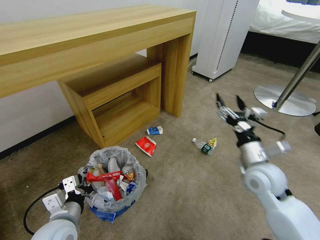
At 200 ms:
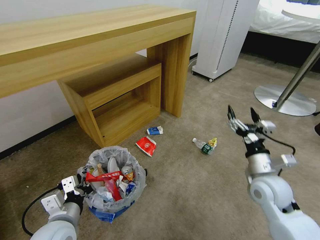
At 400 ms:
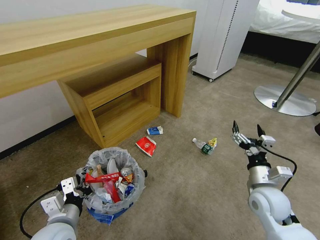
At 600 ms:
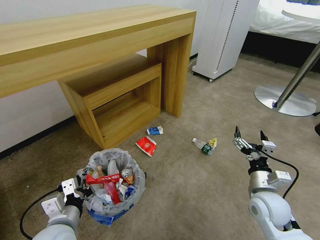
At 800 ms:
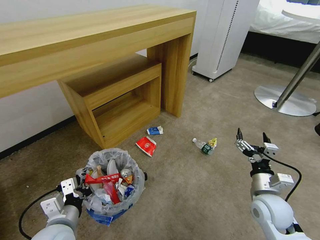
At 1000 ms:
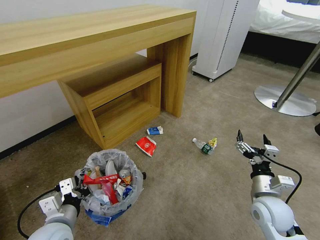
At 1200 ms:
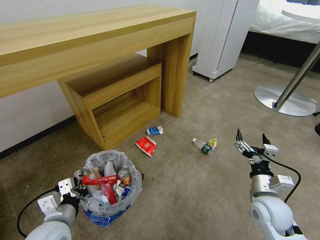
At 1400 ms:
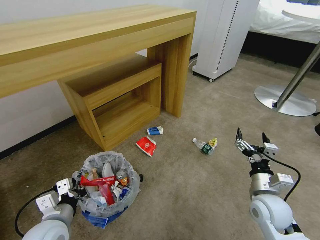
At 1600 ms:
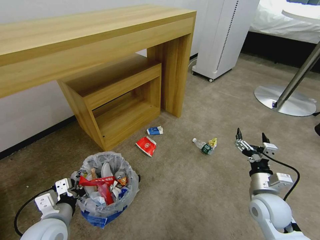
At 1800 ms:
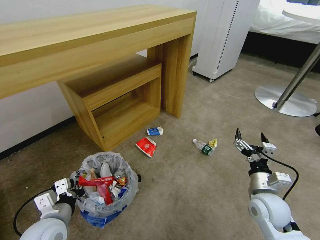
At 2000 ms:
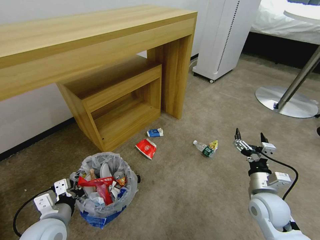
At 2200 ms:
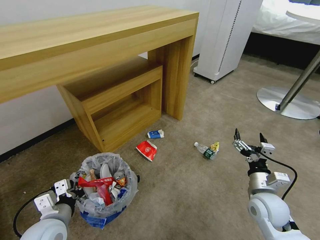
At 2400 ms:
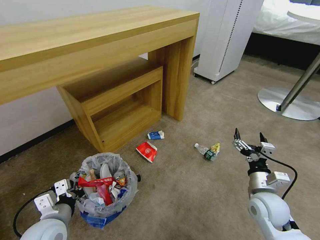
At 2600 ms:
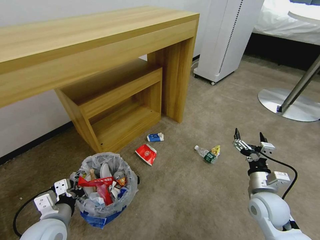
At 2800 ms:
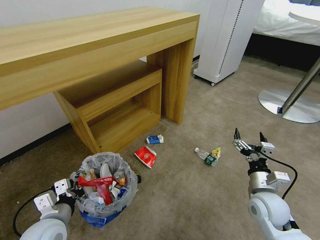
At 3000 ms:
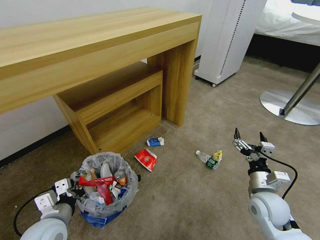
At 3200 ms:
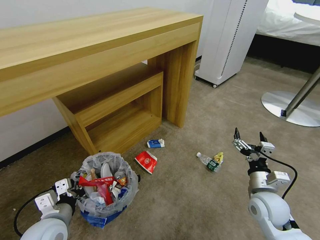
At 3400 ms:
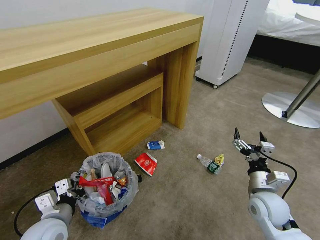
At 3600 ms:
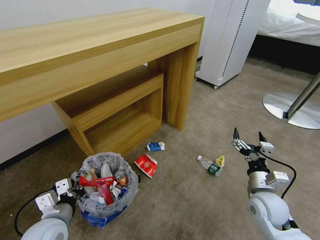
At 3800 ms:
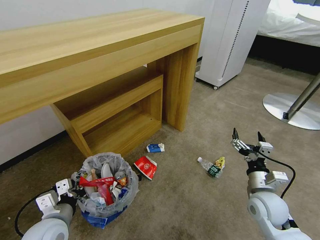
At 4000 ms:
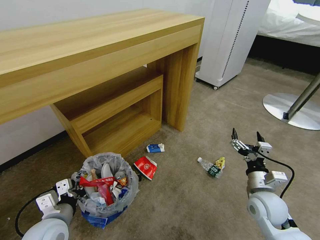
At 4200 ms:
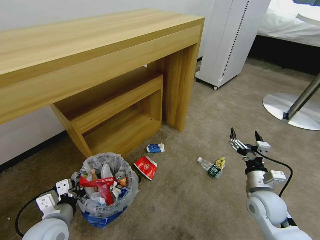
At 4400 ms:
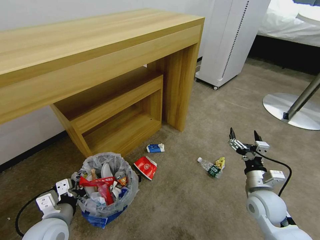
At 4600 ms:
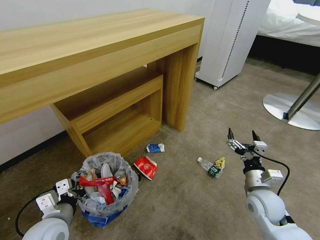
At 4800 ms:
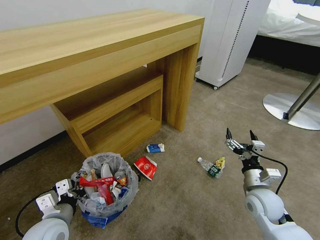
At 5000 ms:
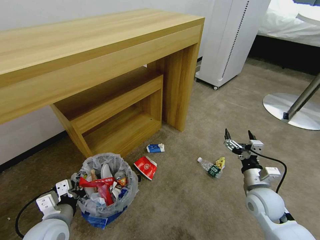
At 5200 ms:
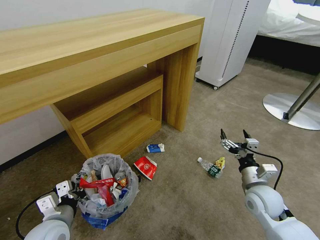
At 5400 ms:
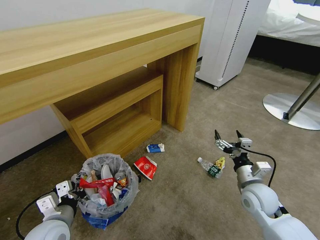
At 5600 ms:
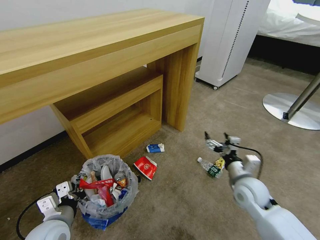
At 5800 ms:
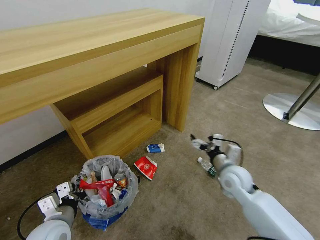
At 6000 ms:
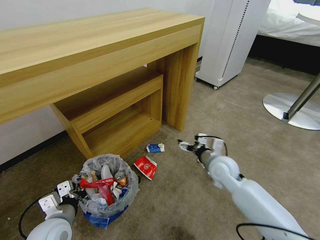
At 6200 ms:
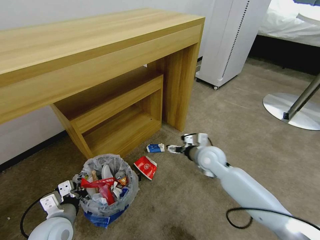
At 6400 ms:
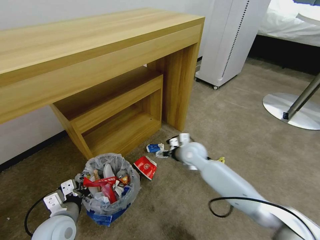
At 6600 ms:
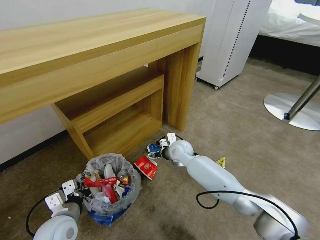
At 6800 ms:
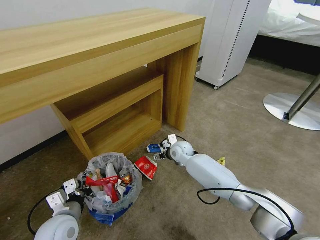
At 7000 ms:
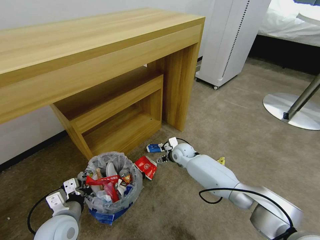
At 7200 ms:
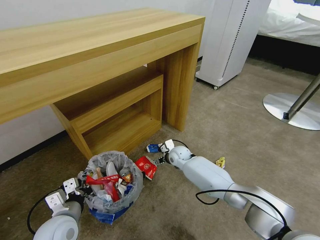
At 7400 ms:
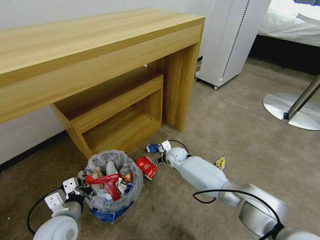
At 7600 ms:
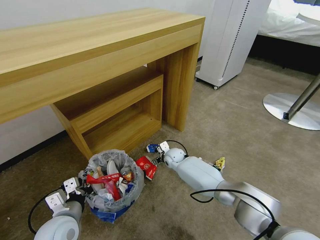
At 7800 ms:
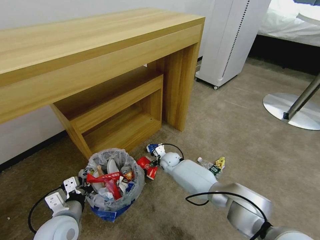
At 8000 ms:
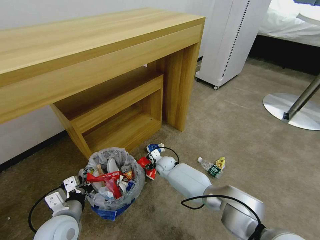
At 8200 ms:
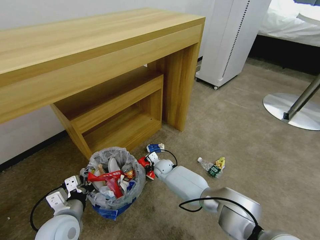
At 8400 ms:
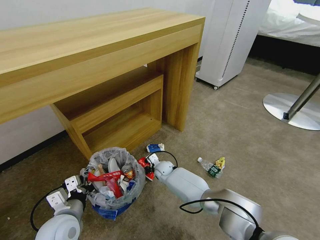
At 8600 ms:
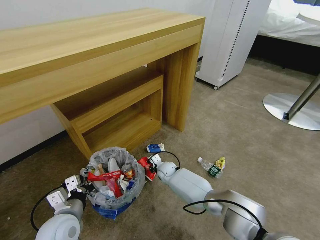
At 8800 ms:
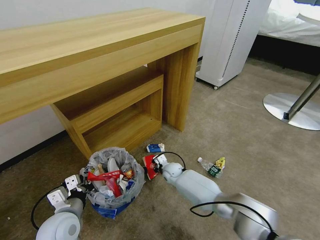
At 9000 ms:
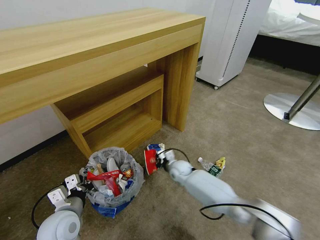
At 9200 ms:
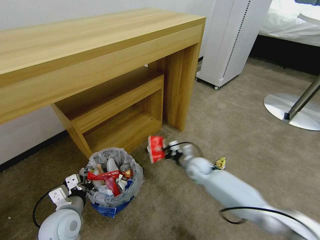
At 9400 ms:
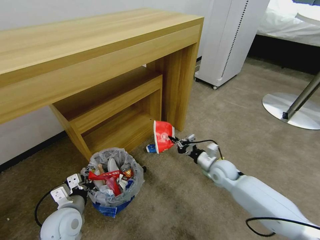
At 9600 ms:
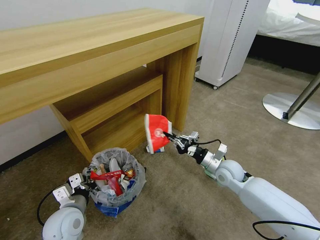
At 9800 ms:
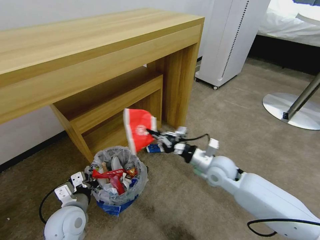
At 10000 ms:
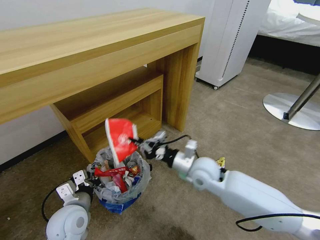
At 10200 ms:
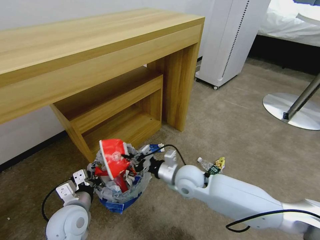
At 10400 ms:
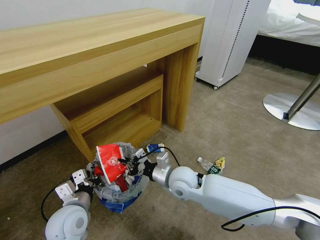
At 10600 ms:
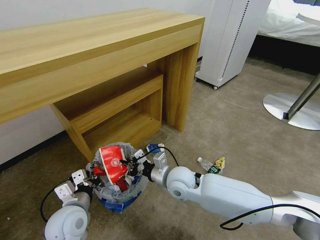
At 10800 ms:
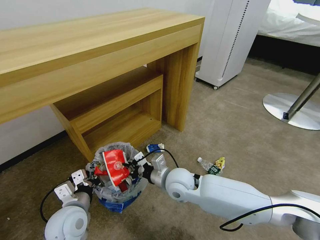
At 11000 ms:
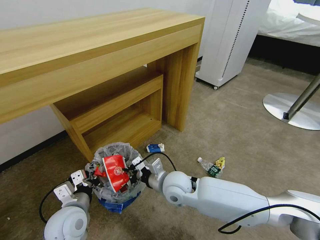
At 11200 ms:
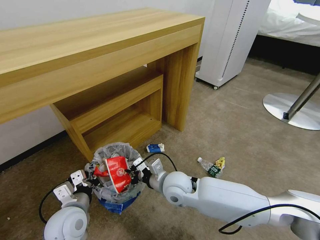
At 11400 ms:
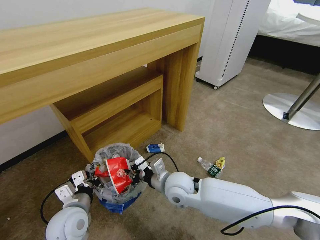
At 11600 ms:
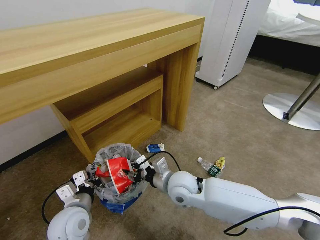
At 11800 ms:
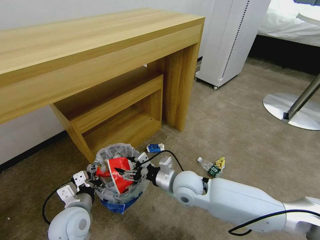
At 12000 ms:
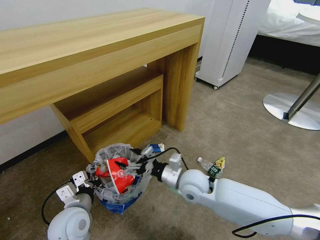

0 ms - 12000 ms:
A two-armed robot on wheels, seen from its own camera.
Task of the whole recording: Pick up the trash bin and place the garbage on the floor into it.
0 ms - 1600 ms: The right gripper is displaced downward and backward by approximately 10 cm.
3000 ms - 4400 ms: Both grippers stay put.
4400 ms - 6000 ms: The right gripper heads forward and to the left, covering about 15 cm.
6000 ms - 7600 ms: The right gripper shifts some 25 cm to the left, forward and downward.
7600 ms - 9000 ms: The right gripper moves backward, some 5 cm, and closes up.
9000 ms - 10400 ms: The right gripper goes roughly 20 cm upward and backward, and goes to the right and returns, about 15 cm each way.
10400 ms - 12000 ms: The right gripper opens its fingers.

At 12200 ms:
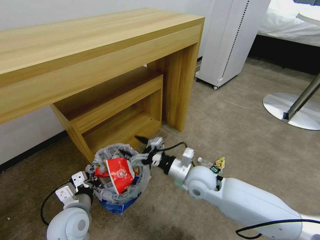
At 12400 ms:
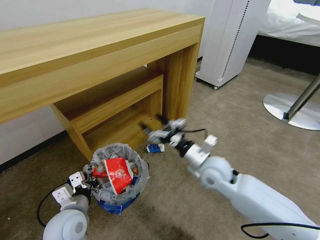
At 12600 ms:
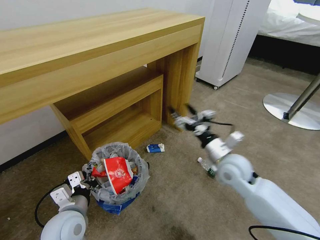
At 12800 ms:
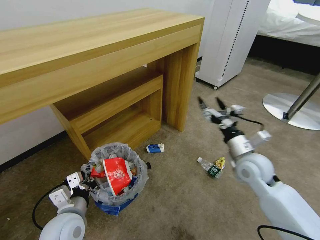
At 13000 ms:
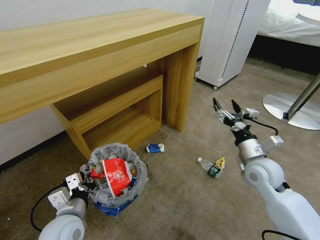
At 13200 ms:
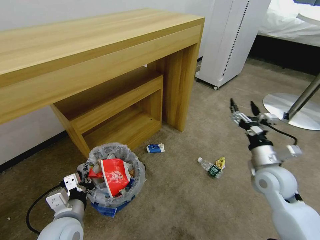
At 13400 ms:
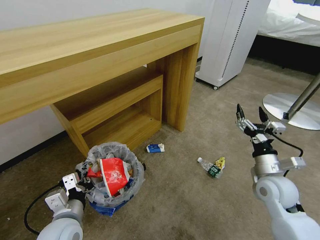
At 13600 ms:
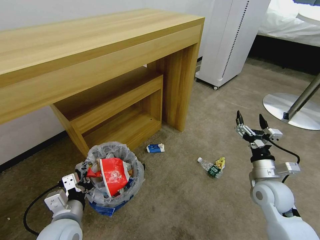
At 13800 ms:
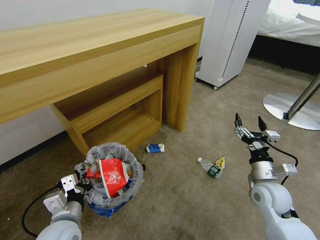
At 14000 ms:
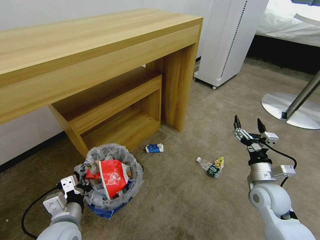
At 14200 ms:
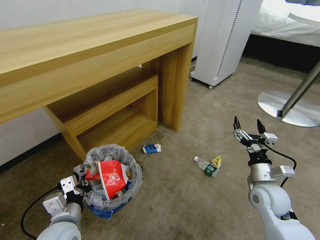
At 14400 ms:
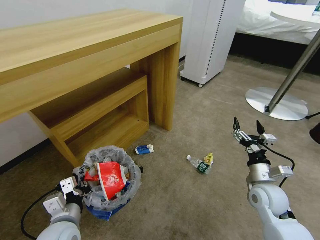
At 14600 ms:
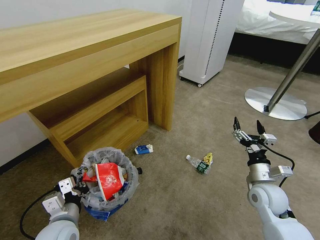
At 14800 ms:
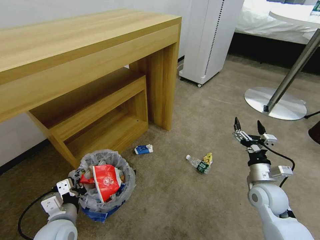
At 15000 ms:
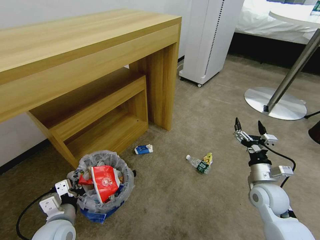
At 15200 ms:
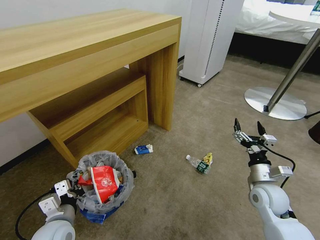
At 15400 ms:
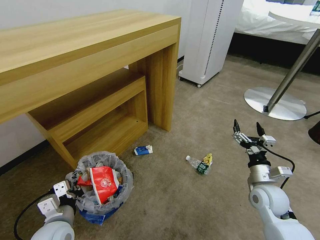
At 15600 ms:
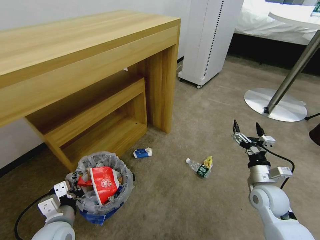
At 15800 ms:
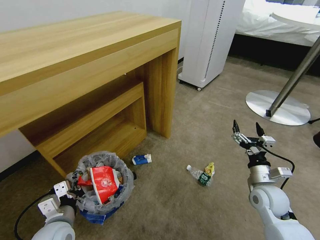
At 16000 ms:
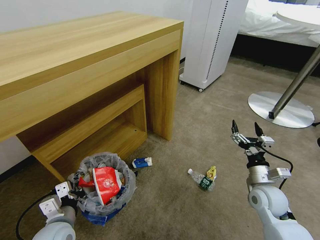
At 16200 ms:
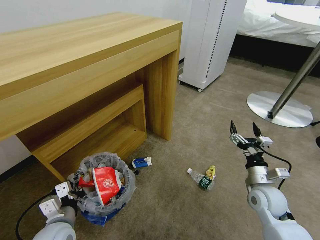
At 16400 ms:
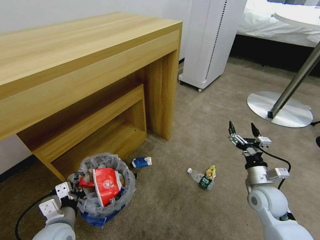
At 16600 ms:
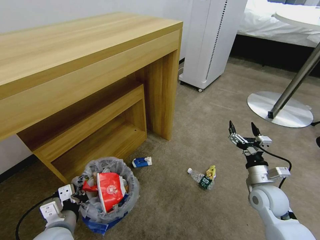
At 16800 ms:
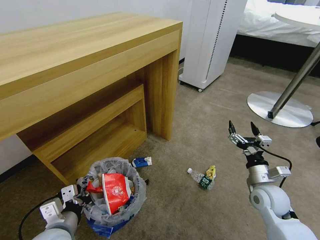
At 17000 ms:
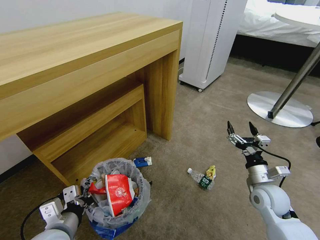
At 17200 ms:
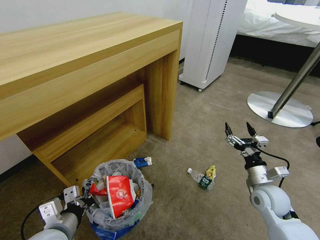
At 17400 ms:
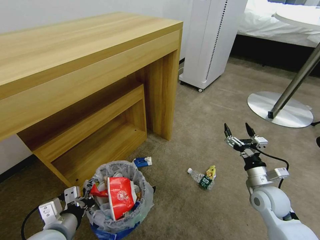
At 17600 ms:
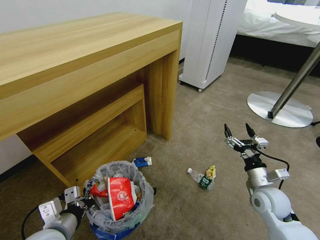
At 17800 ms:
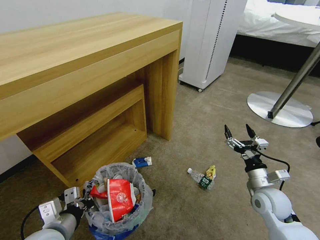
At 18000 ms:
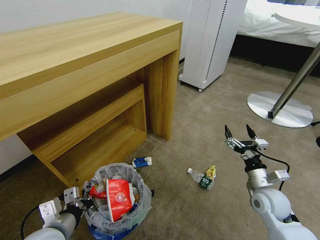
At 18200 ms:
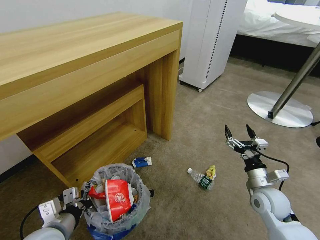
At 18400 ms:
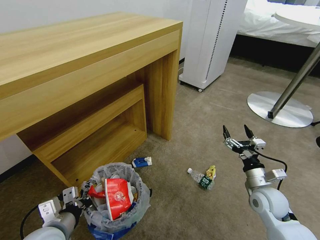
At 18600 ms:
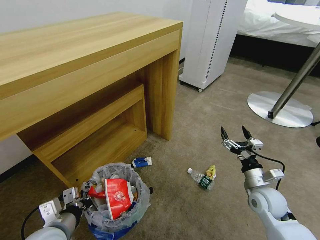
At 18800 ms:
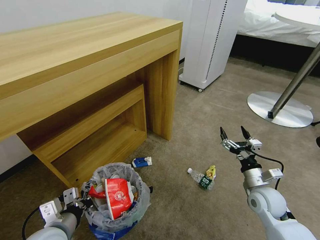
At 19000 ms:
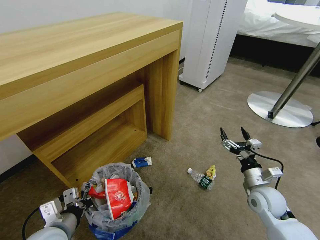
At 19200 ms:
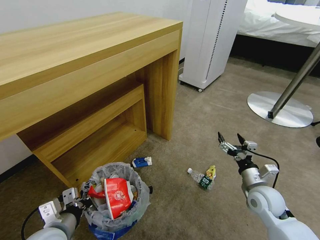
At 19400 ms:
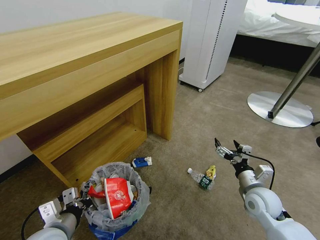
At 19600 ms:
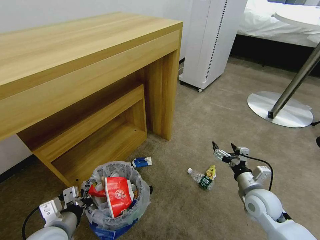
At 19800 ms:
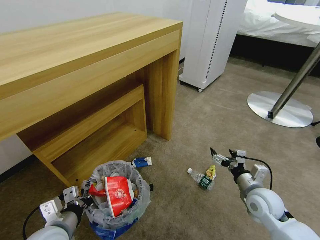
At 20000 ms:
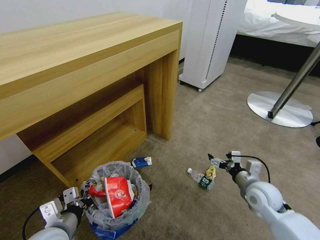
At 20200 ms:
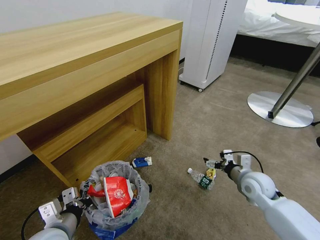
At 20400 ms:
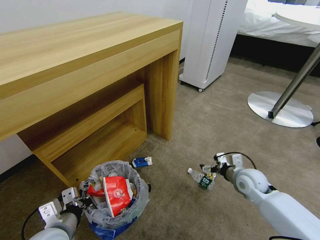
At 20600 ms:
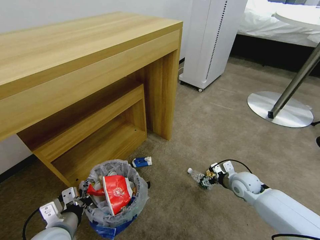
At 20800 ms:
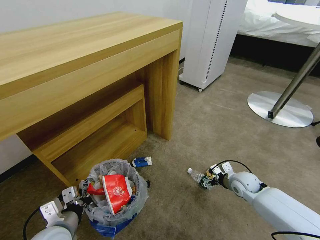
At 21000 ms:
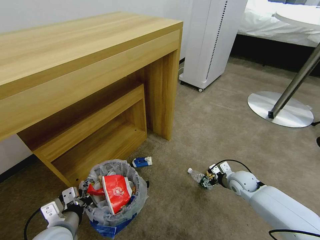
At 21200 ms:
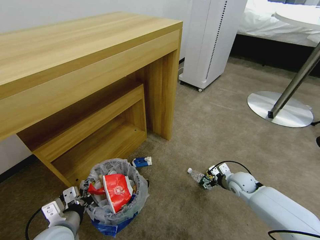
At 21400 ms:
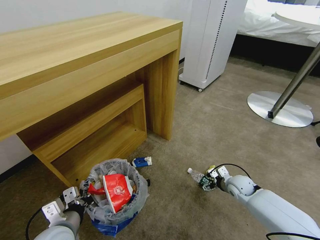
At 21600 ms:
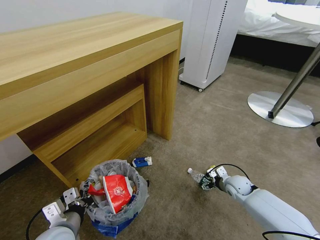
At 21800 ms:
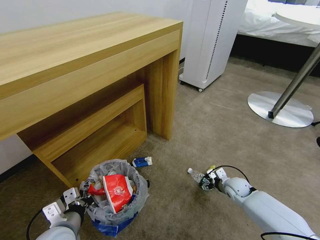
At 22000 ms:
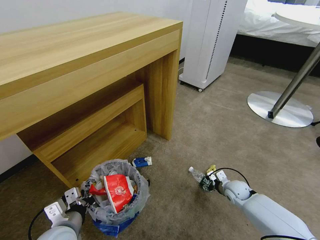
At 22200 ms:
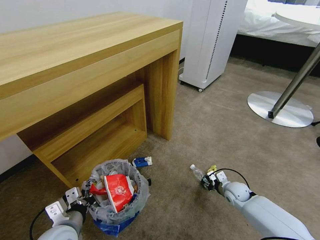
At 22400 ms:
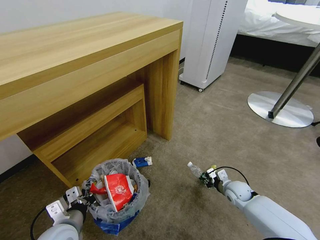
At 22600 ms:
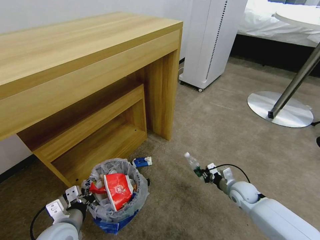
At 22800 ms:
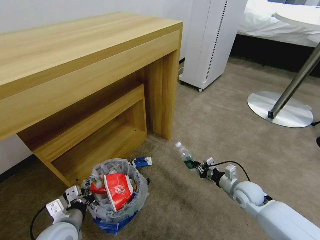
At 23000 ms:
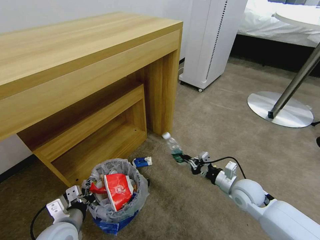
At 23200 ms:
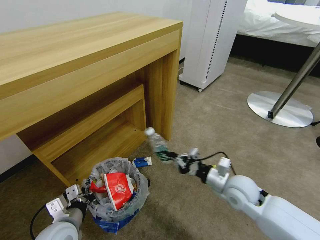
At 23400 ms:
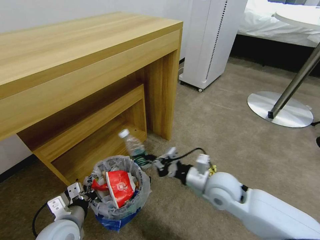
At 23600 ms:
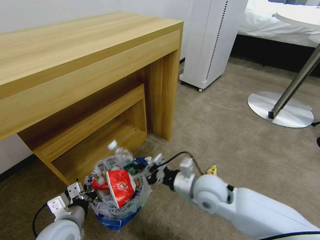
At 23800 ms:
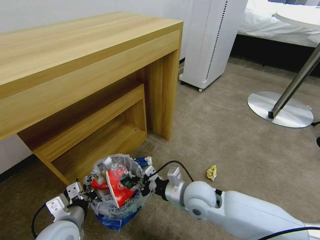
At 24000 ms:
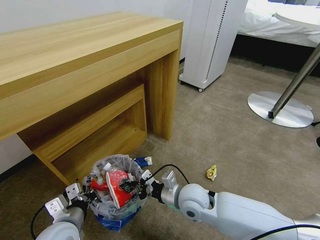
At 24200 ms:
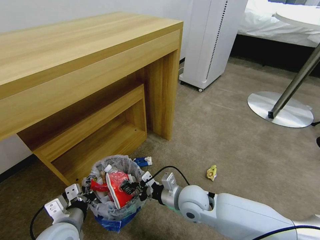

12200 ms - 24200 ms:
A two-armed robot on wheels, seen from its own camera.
Task of the whole recording: Pick up the trash bin and place the garbage on the floor into it.
12200 ms - 13800 ms: The right gripper goes roughly 20 cm to the right.
16600 ms - 18200 ms: The grippers stay close to where they were, moving slightly.
19800 ms - 21200 ms: The right gripper shifts roughly 15 cm forward and downward.
21200 ms - 22600 ms: The right gripper closes its fingers.
22600 ms - 24200 ms: The right gripper travels to the left and upward by approximately 25 cm.
